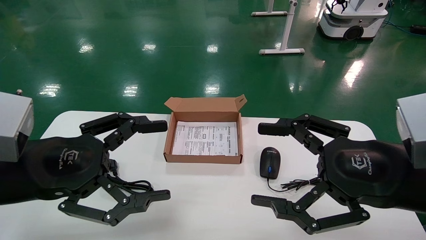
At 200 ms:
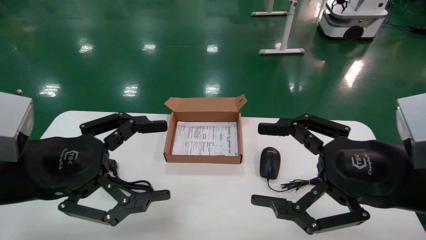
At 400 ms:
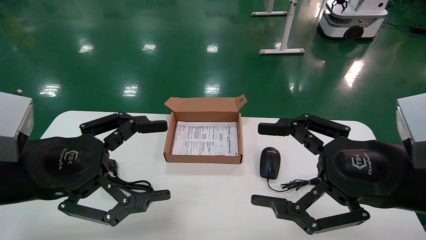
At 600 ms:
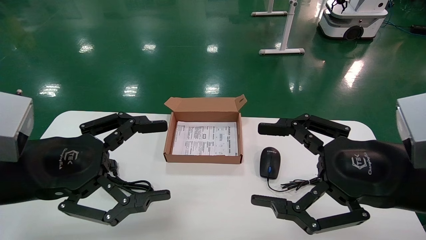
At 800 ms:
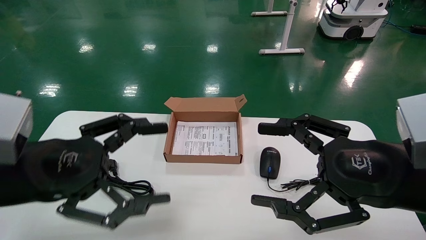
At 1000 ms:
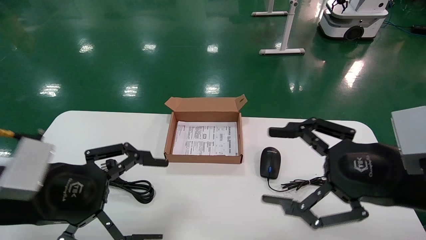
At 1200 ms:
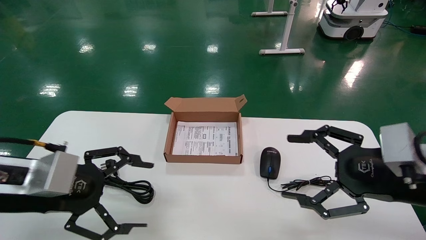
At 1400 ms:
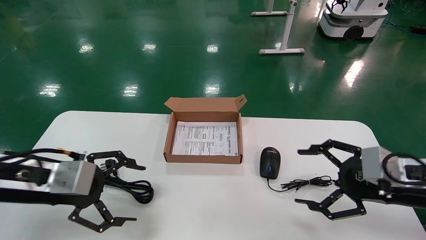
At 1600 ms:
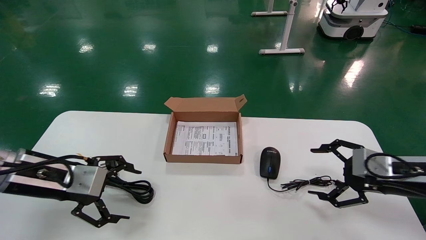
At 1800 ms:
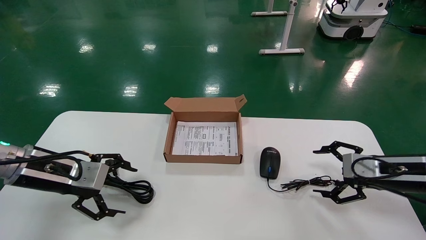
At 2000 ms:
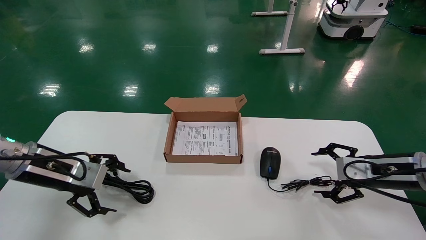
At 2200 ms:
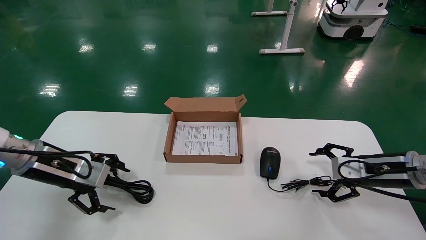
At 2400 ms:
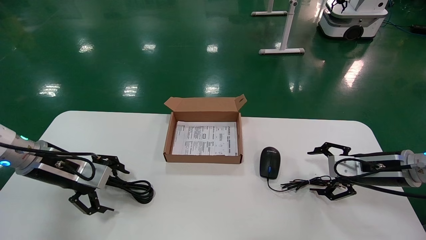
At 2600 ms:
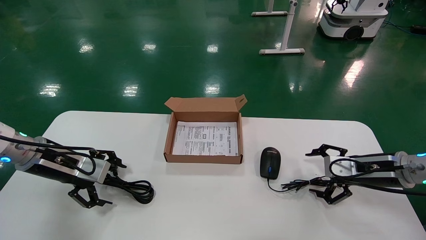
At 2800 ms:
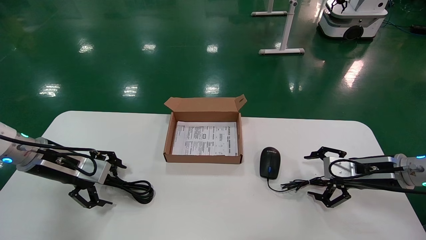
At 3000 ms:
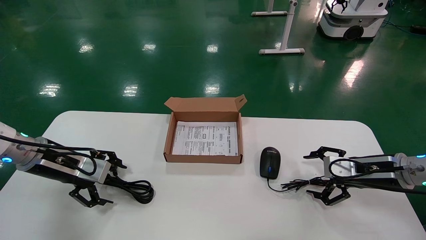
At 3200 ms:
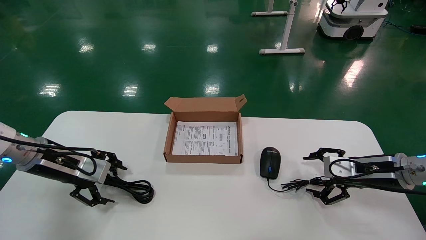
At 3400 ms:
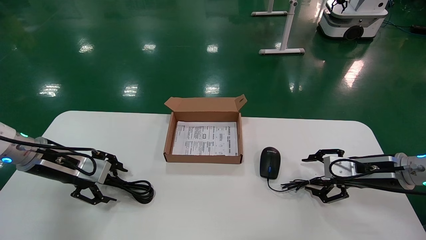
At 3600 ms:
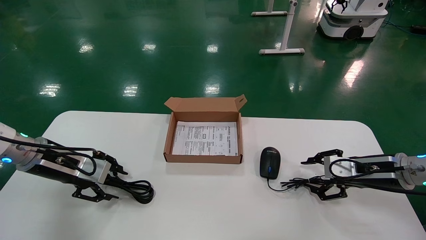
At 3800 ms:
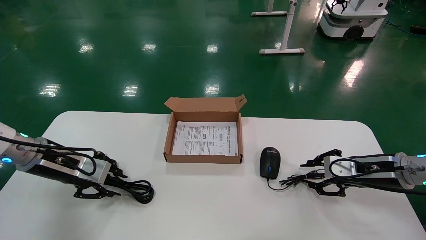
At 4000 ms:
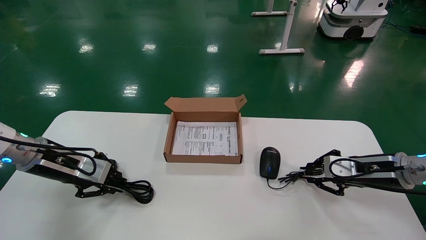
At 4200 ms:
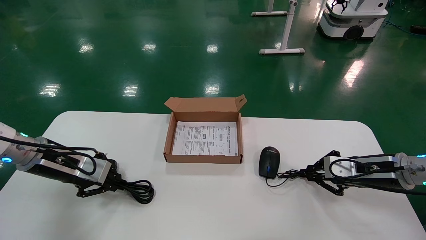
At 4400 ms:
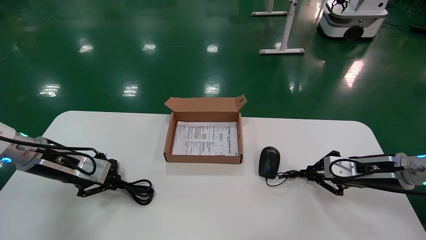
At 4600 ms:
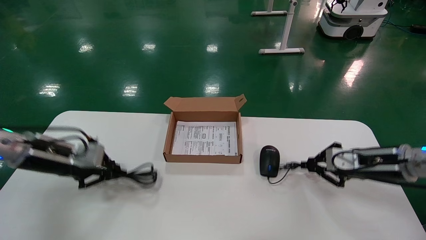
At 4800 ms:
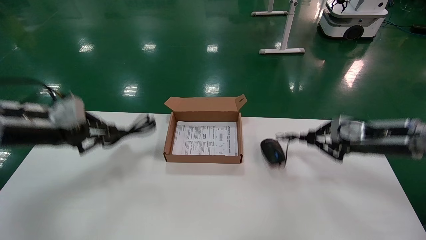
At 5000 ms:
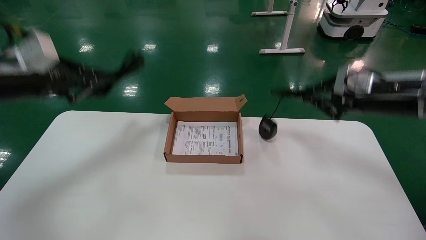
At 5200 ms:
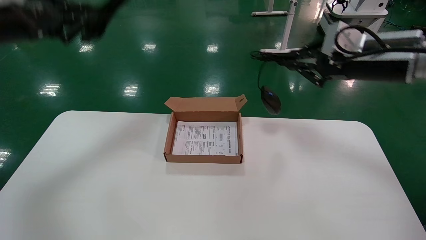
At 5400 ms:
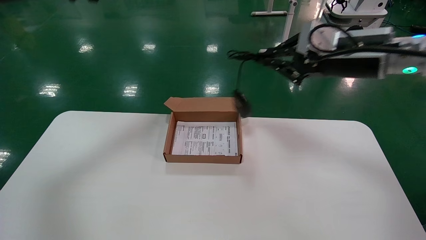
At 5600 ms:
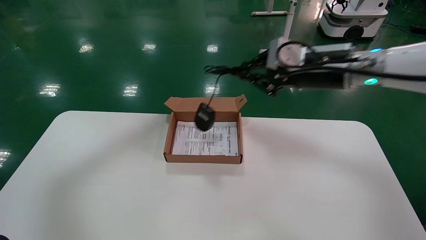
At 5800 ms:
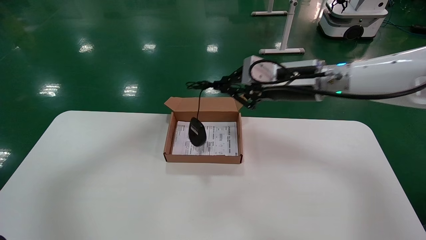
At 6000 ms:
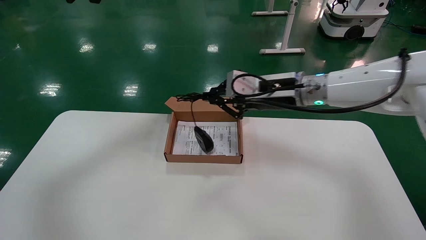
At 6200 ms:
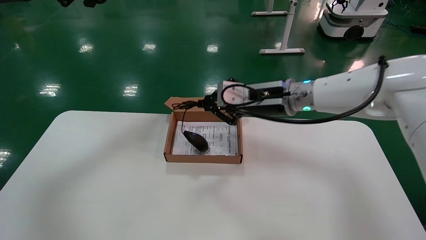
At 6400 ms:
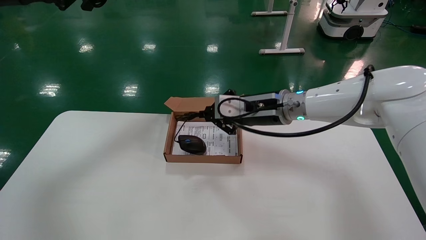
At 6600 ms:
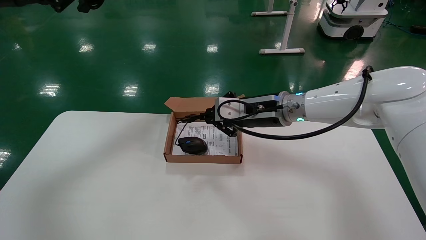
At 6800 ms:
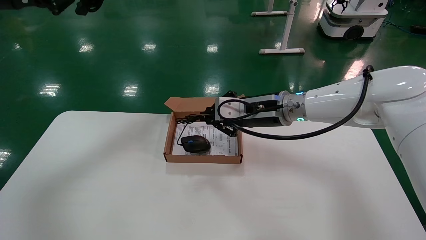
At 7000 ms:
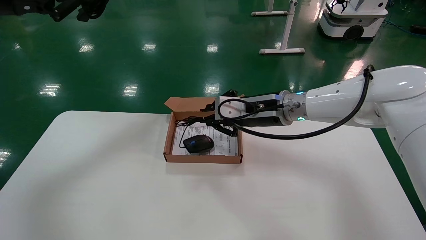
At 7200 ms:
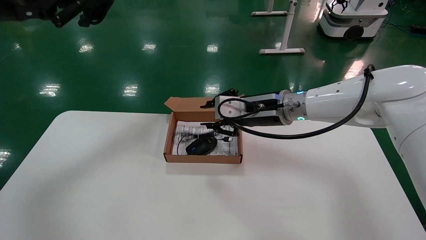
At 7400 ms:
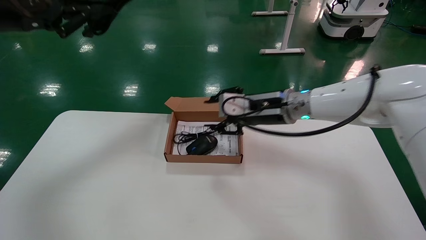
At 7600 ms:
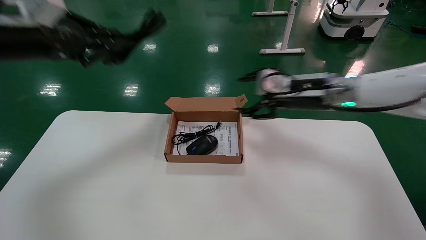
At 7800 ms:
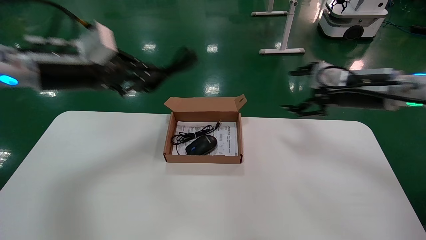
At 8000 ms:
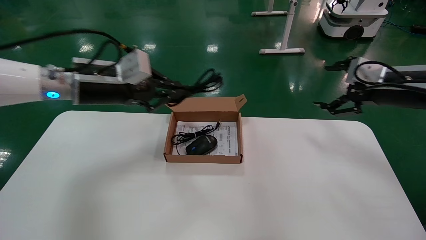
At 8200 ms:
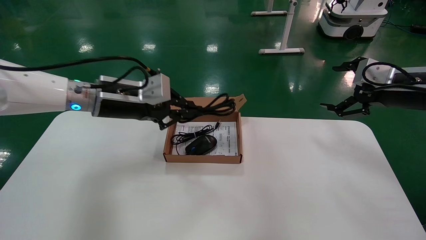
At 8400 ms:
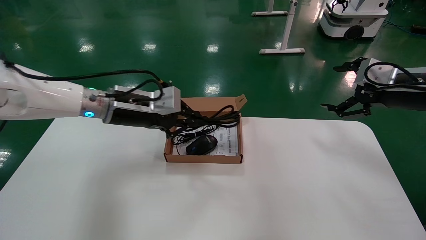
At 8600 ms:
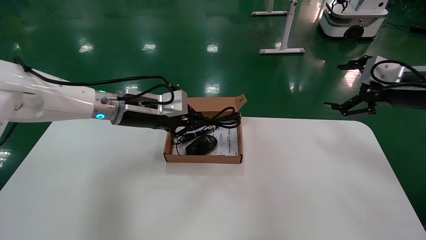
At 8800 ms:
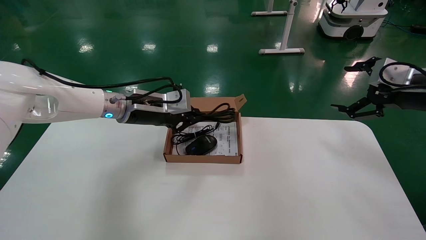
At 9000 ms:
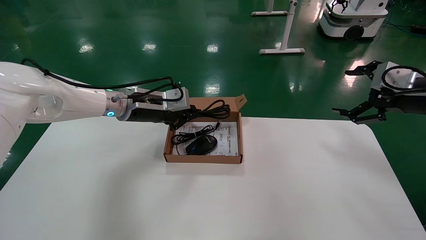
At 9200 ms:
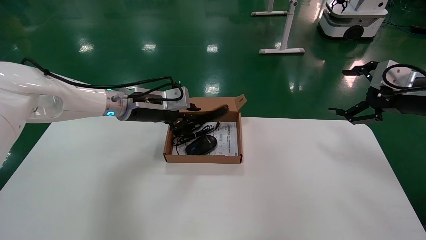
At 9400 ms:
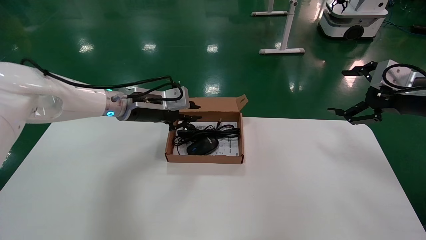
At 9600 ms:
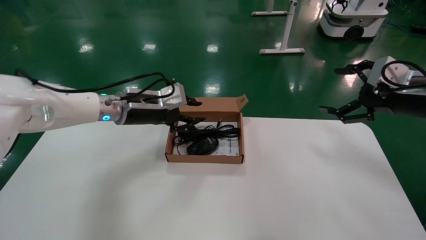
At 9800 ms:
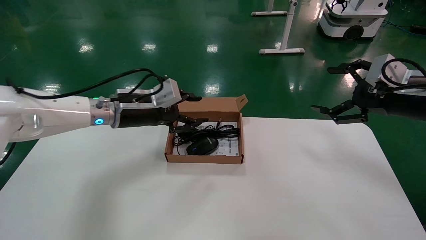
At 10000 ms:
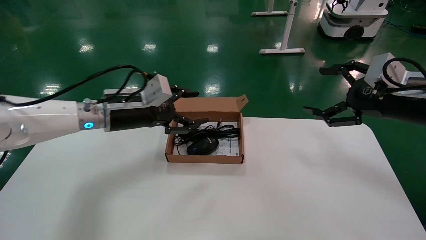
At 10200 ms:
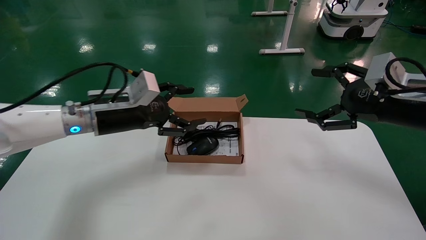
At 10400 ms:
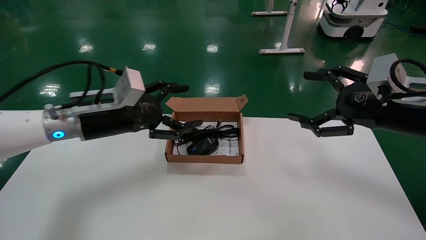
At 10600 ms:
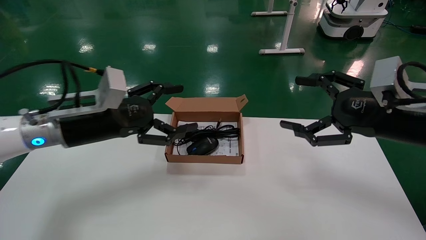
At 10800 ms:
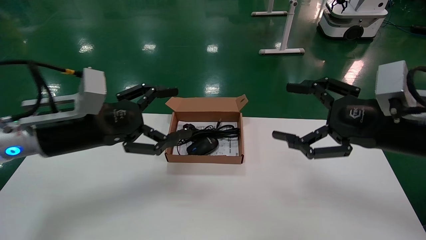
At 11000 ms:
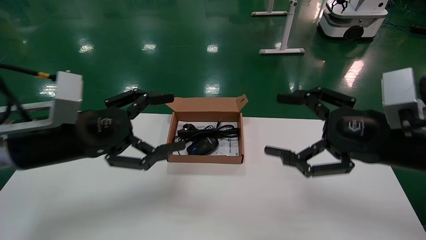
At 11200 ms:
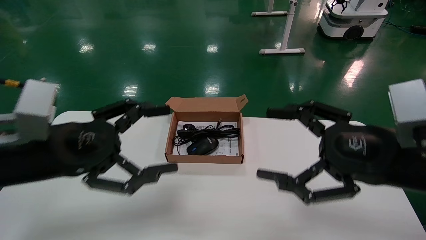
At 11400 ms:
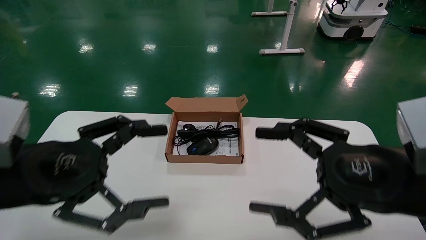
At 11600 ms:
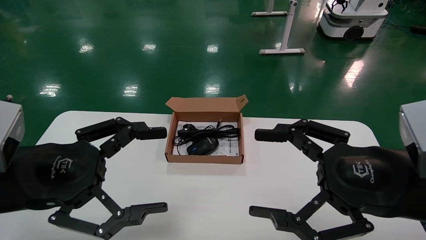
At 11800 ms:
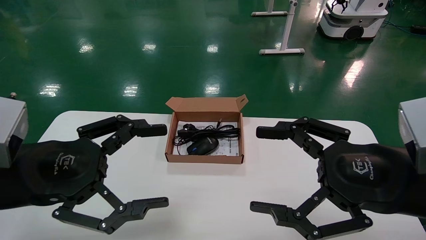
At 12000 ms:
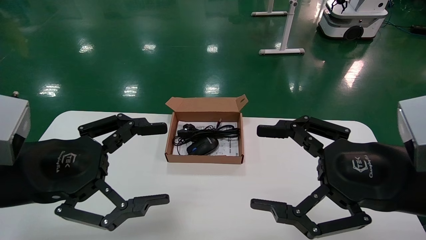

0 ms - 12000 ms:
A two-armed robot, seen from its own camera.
Step, 800 ms - 4400 ms: Grab and lift both the mouse and power cord from the accessory packaging area at the same time.
Step, 4600 ms - 9200 ms: Place the mouse and power cord into the box.
0 ms - 1600 ms: The right gripper goes approximately 15 cm forward, to the right and downward; the left gripper heads forward and downward, covering about 10 cm.
1600 ms - 3000 ms: Both grippers travel together forward, some 5 cm.
3000 ms - 4400 ms: The right gripper closes up. Meanwhile the left gripper closes its fingers.
4400 ms - 6000 ms: The left gripper moves upward, about 30 cm; the right gripper is displaced to the left and upward by roughly 25 cm.
6000 ms - 7600 ms: The right gripper is displaced to the right by about 10 cm, and opens its fingers. Meanwhile the left gripper moves downward, some 10 cm.
7600 ms - 9000 ms: The right gripper moves to the right, some 20 cm, and opens up. Meanwhile the left gripper travels to the right, downward and forward by approximately 20 cm.
9000 ms - 10400 ms: The right gripper travels to the left and backward by approximately 10 cm; the left gripper goes approximately 10 cm backward, and opens up.
10400 ms - 12000 ms: The right gripper is displaced backward and to the left by approximately 15 cm; the left gripper goes about 15 cm backward.

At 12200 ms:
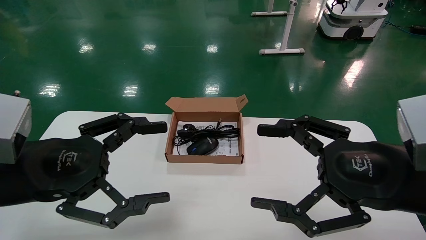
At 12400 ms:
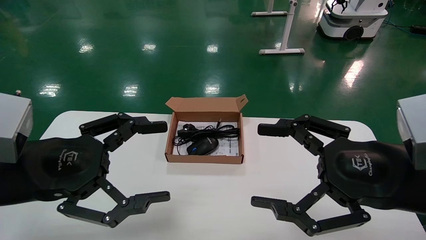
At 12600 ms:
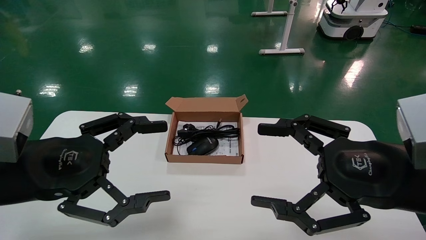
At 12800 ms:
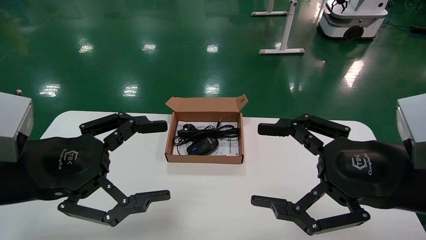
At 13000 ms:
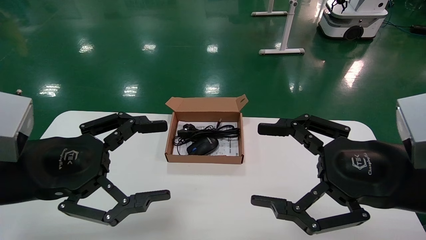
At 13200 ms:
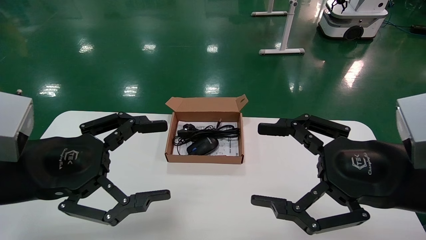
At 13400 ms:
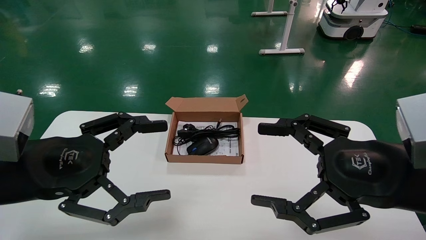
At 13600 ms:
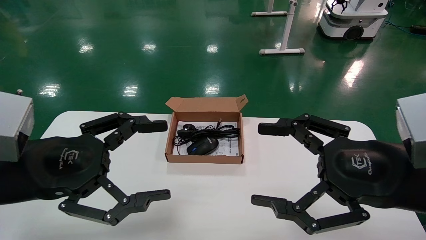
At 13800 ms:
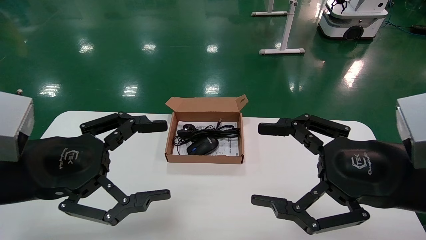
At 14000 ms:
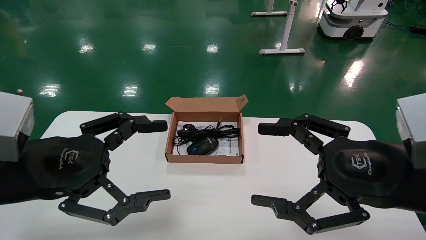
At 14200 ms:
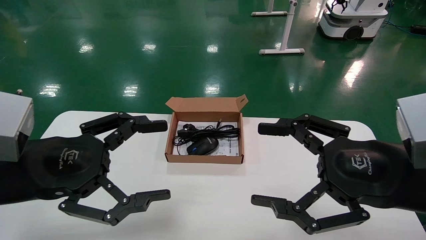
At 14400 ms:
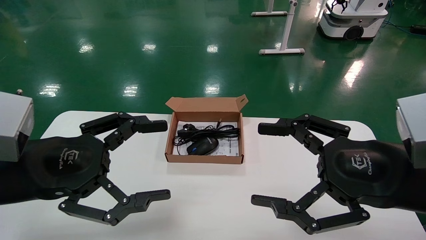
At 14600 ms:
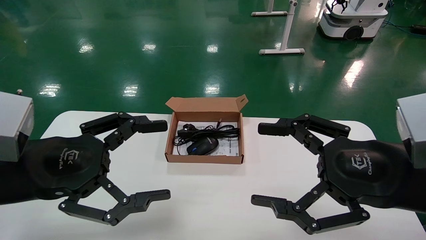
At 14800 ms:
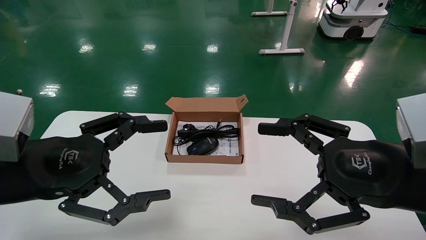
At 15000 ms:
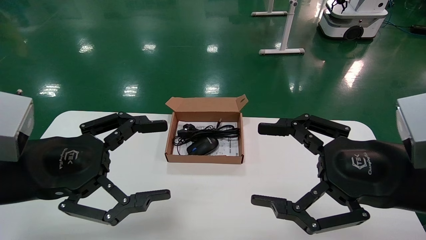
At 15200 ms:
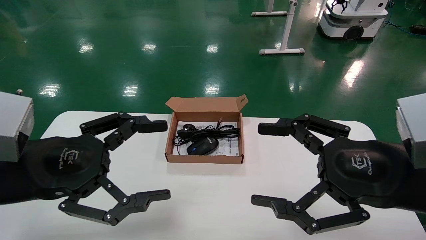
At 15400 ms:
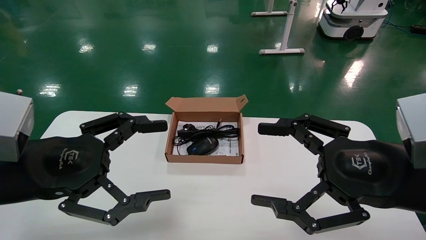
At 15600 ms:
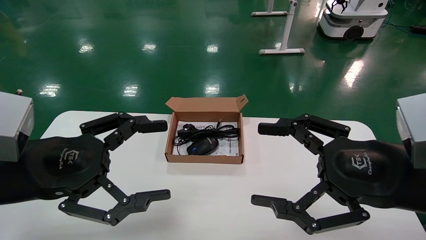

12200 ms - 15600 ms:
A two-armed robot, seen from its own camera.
12200 ms - 15600 ms: Neither gripper changes place.
